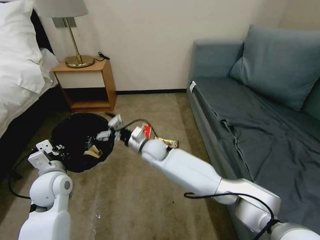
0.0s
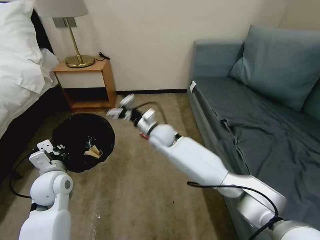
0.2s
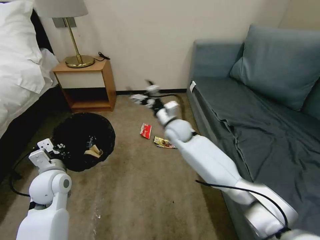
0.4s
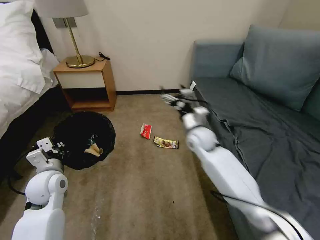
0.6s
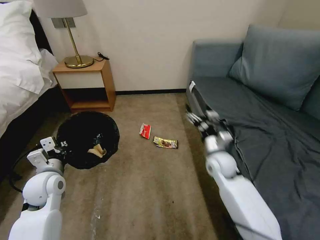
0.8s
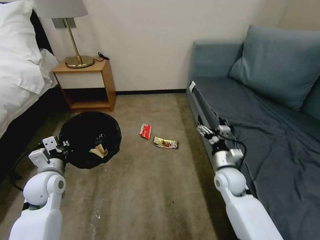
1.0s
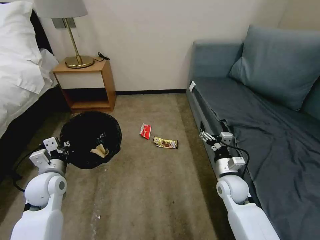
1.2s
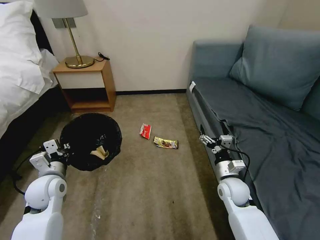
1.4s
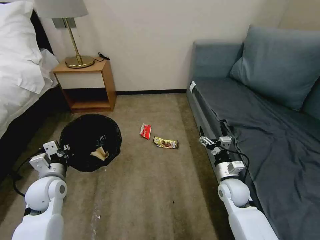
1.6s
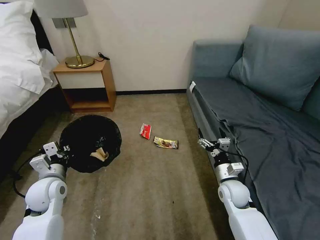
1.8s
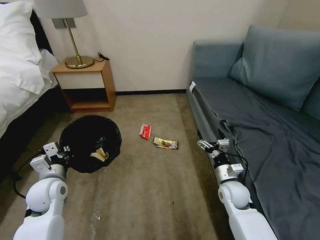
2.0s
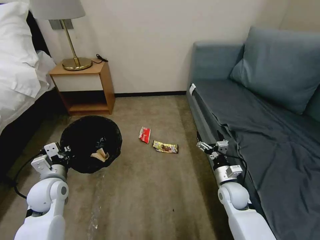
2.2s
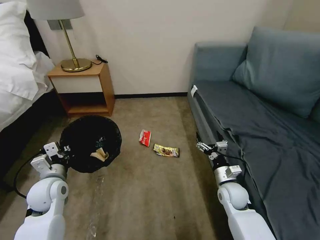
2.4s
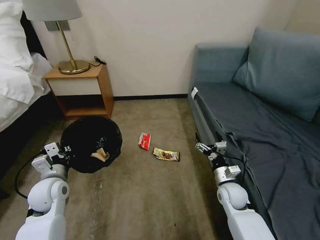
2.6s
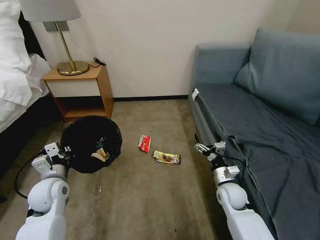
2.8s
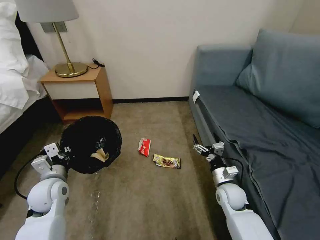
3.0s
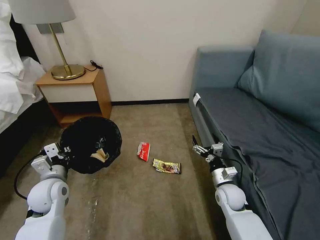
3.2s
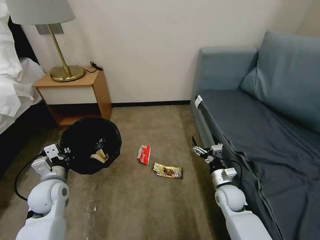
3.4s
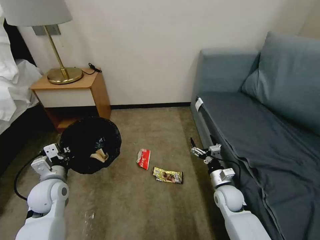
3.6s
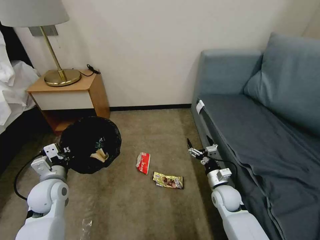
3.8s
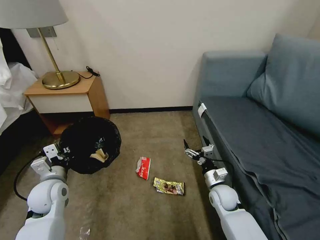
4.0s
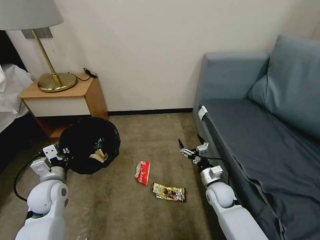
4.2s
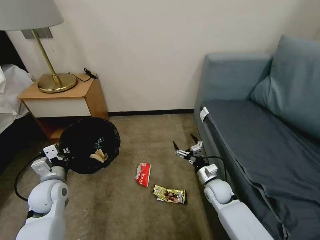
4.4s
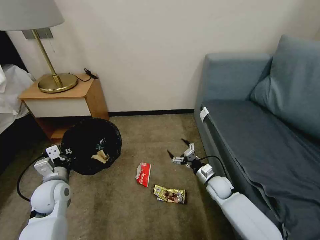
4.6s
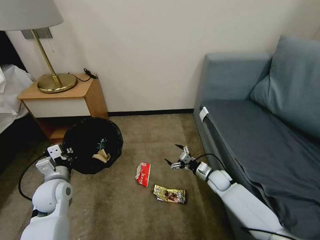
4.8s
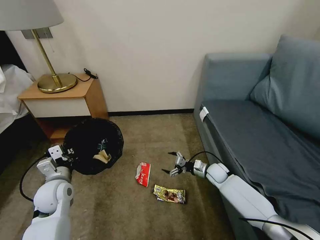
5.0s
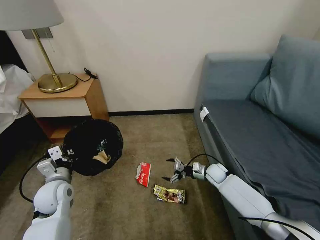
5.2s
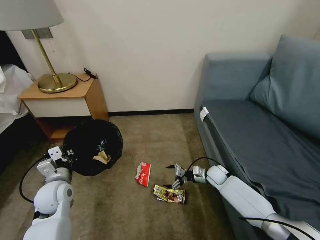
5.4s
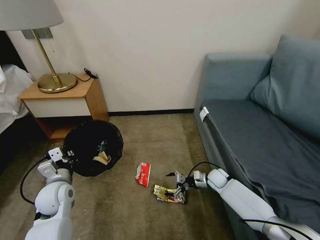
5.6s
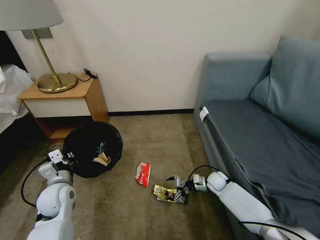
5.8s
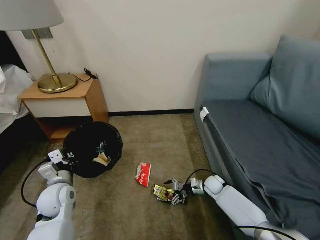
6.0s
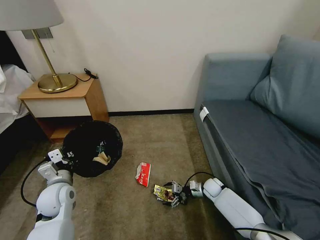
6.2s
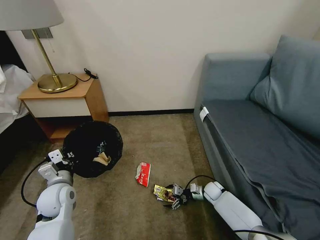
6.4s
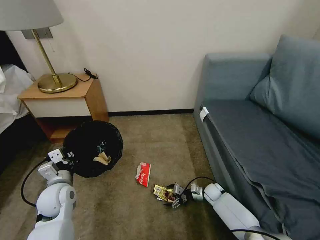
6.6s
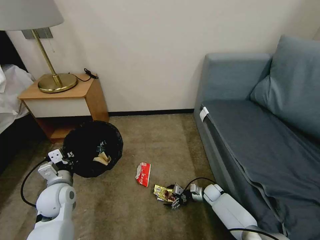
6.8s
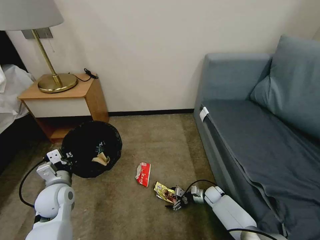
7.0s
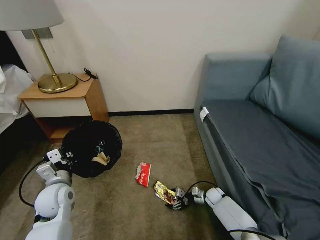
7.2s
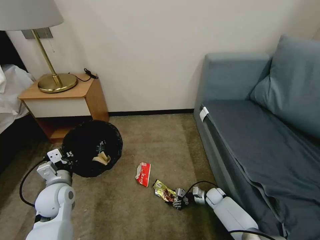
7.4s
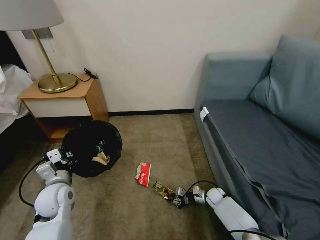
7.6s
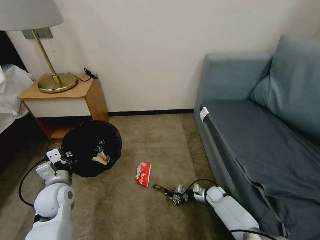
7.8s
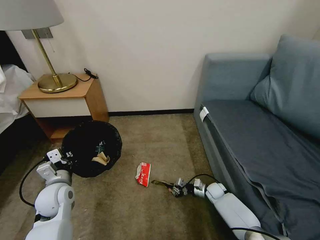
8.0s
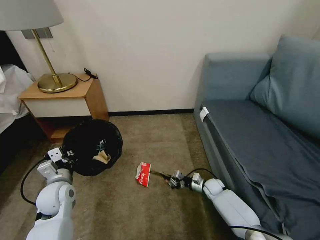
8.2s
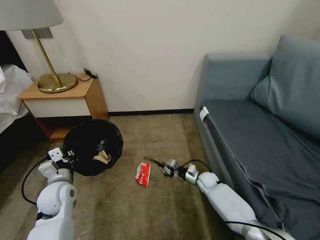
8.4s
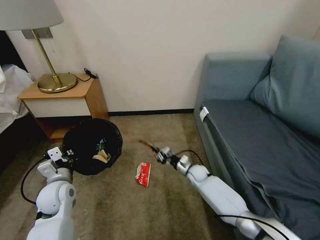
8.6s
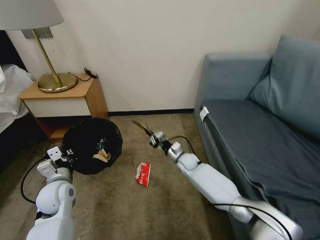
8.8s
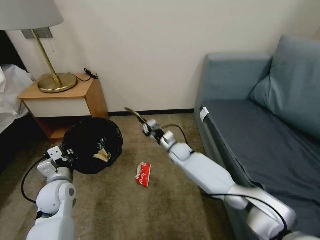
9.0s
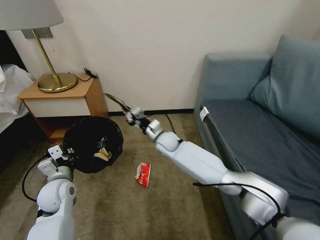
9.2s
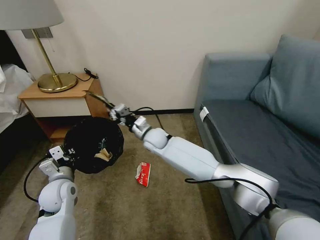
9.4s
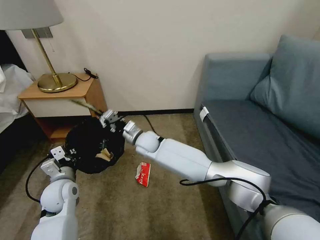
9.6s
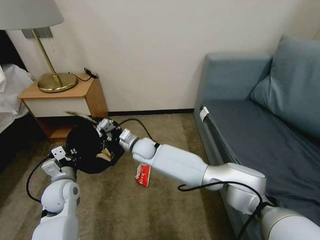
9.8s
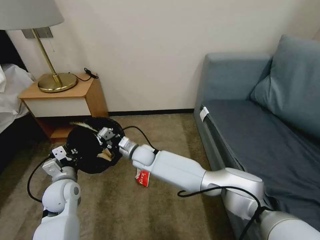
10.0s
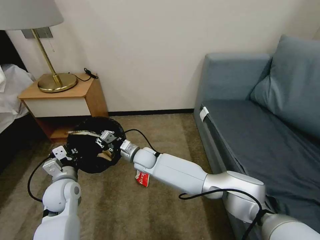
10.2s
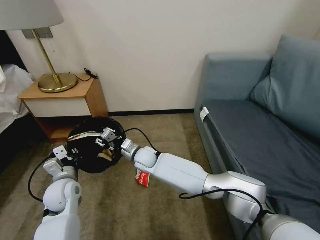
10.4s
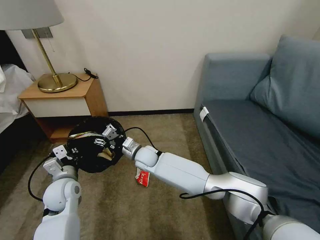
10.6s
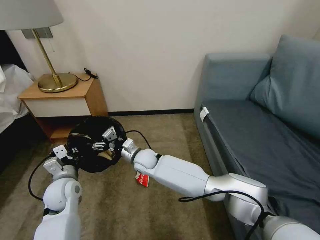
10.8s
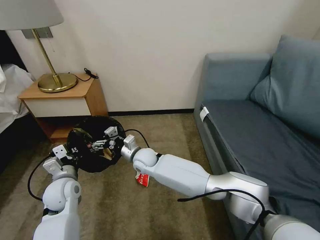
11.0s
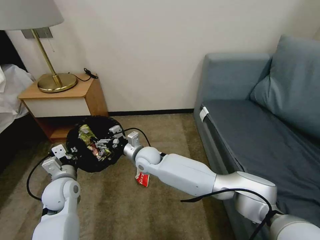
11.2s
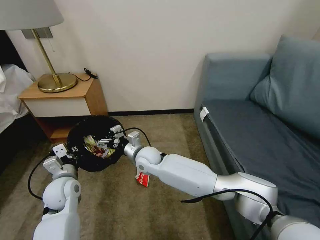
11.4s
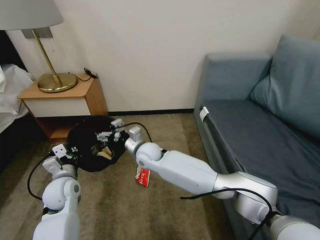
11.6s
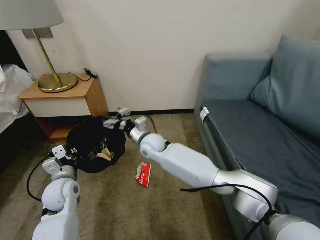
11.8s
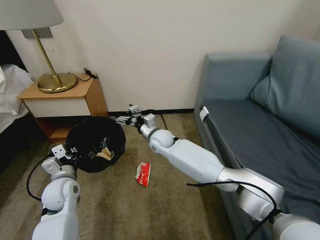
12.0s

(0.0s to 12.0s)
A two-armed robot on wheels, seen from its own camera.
Task of the whole recording: Pick up the trash bin, then pick up the garbage on the floor and place it into the trash bin.
0.0s - 1.6s: The right gripper moves to the right and backward, about 30 cm.
4.4s - 6.0s: The right gripper heads downward and forward, covering some 10 cm.
6.0s - 7.6s: The right gripper moves downward, about 5 cm, and closes.
7.6s - 9.0s: The right gripper heads upward, to the left and forward, covering about 30 cm.
9.0s - 10.4s: The right gripper moves to the left, some 15 cm, and opens its fingers.
10.4s - 12.0s: The right gripper is displaced to the right, forward and upward by approximately 10 cm, and opens up.

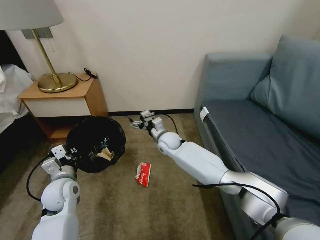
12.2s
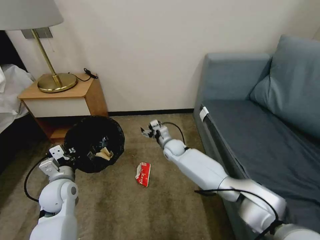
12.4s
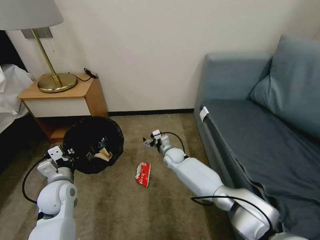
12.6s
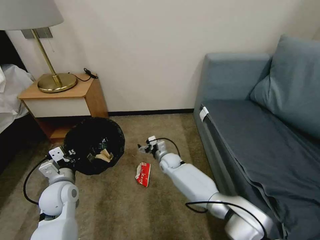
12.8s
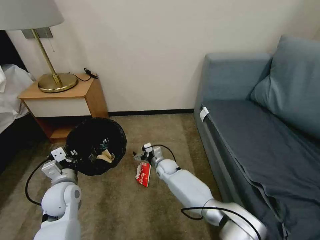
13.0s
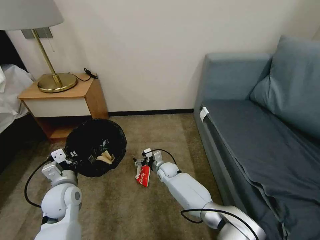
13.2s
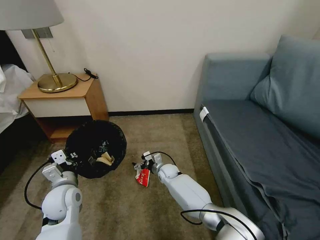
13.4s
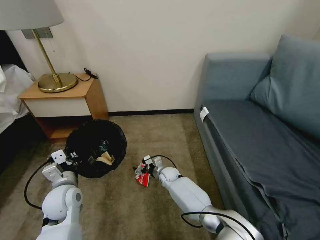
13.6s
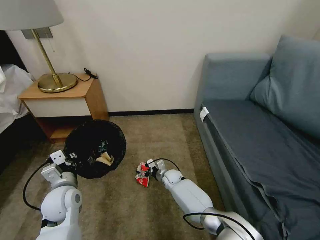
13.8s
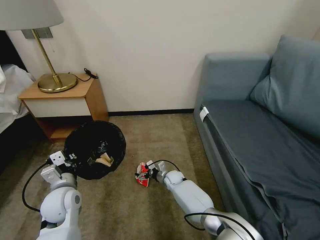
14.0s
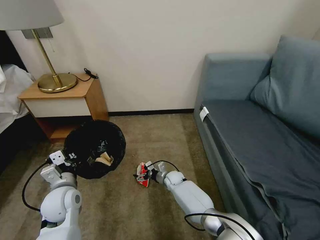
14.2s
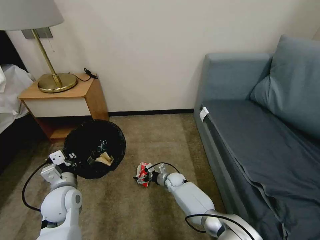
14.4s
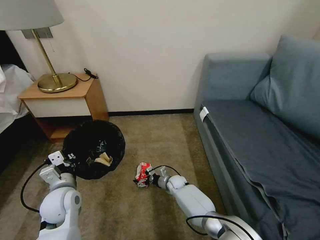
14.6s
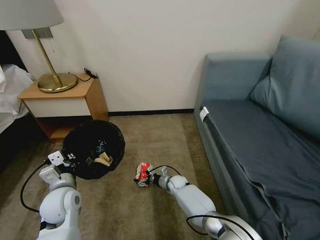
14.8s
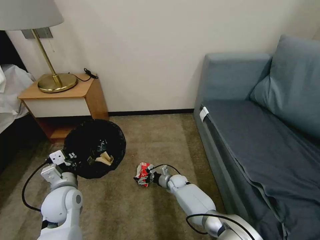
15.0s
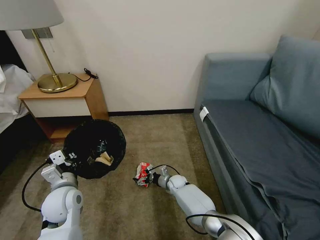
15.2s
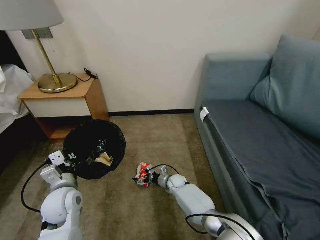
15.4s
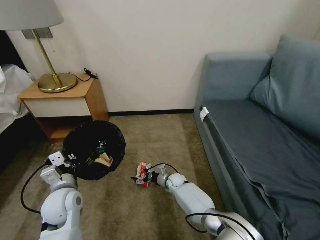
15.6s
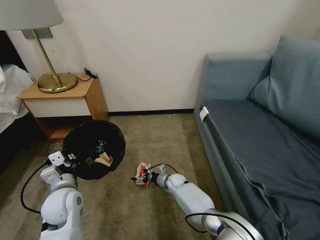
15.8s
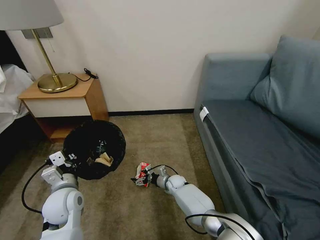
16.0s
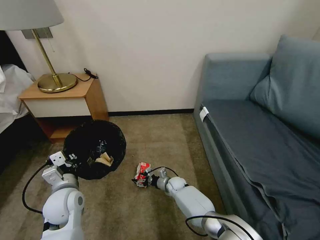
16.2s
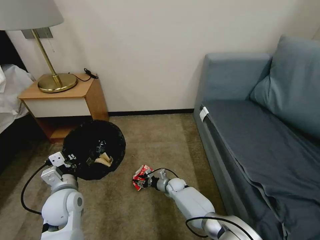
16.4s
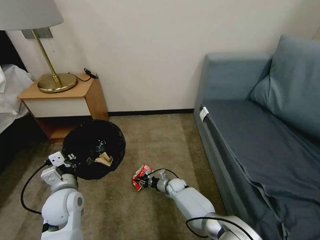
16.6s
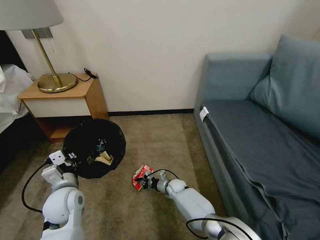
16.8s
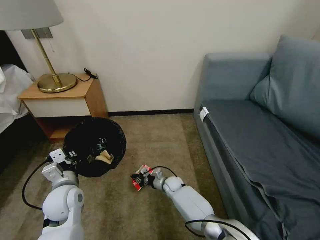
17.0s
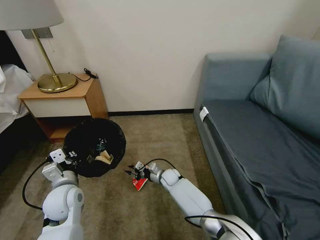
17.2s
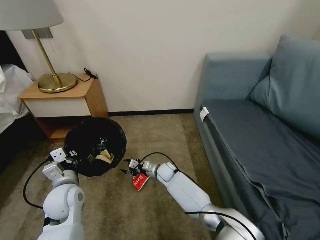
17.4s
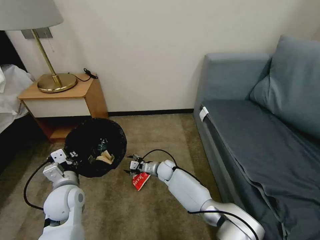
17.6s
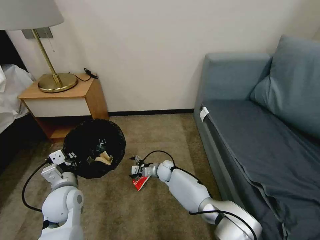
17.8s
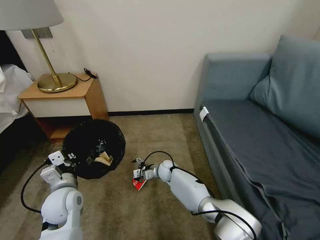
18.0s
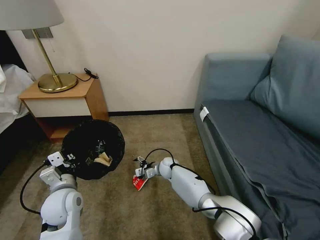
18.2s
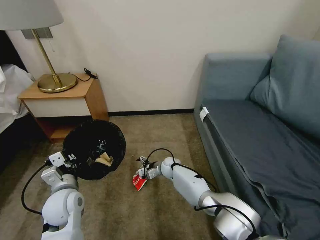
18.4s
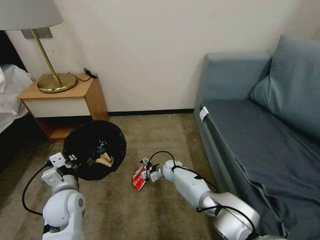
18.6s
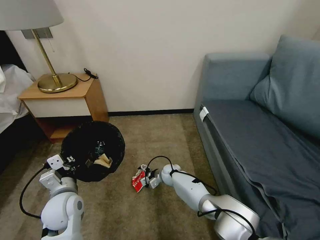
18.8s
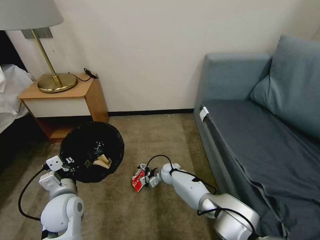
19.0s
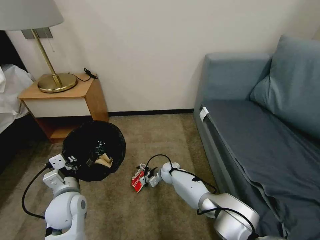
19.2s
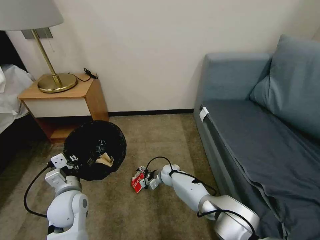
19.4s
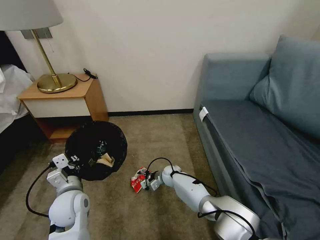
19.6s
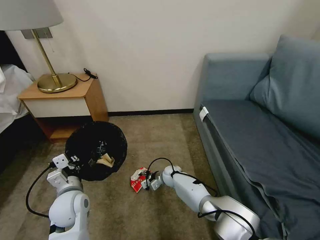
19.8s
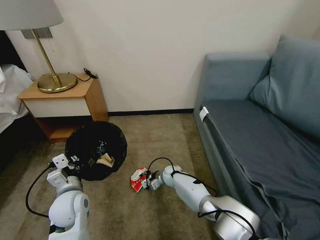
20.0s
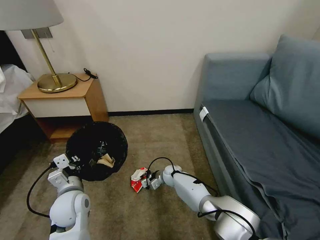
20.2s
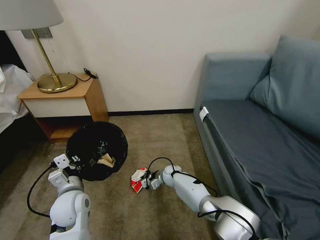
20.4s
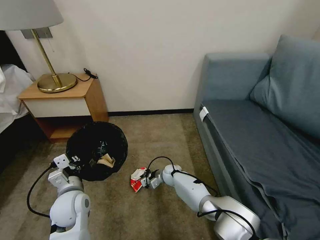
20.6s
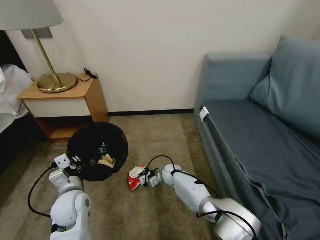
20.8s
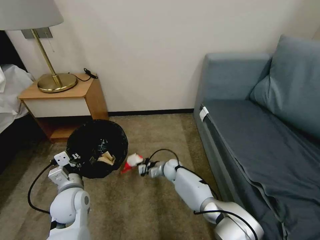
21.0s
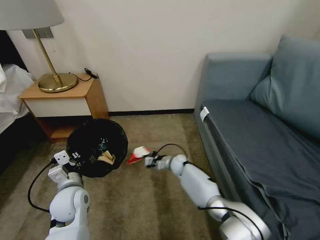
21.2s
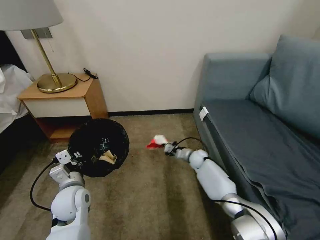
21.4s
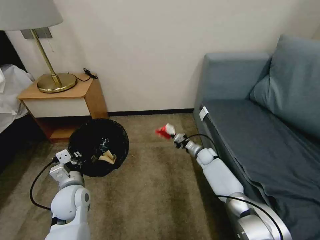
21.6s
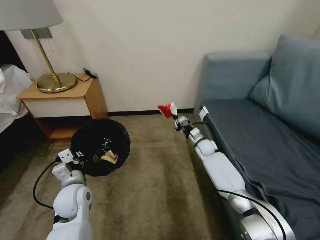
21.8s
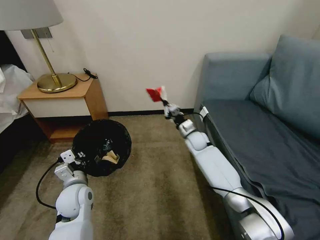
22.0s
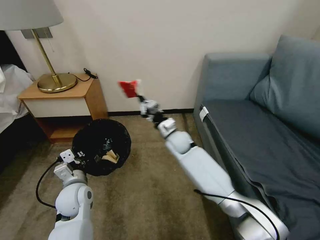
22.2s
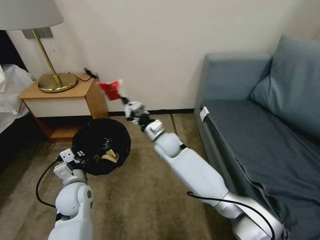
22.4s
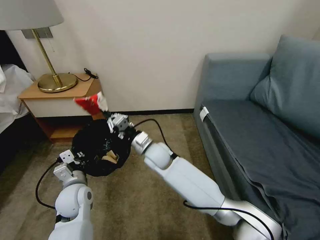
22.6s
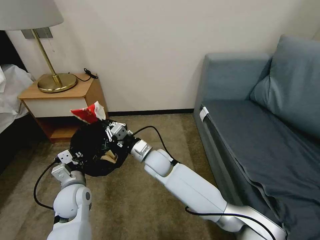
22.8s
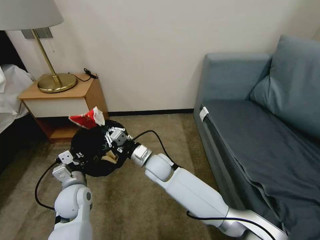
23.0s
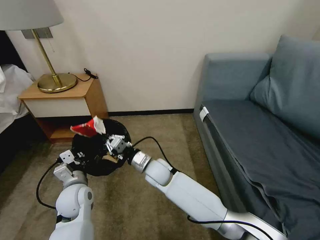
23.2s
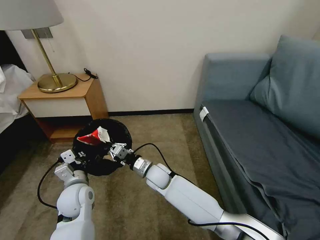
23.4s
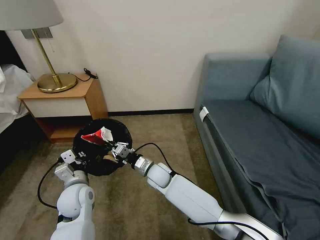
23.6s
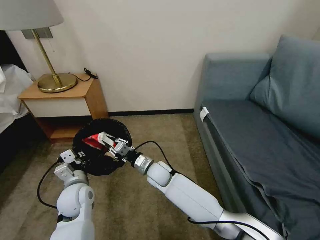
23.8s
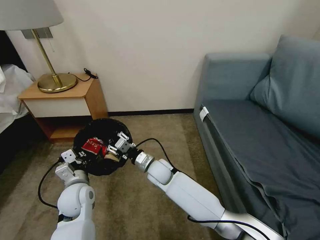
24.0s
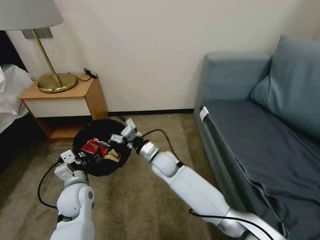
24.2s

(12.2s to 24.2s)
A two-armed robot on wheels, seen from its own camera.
Task of the whole recording: Pick up the trash bin, then pick up the garbage on the floor and place it into the trash bin.
12.2s - 13.8s: The right gripper is displaced downward by about 20 cm.
13.8s - 15.2s: There are only small adjustments of the grippers.
15.2s - 16.6s: The right gripper closes its fingers.
16.6s - 18.2s: The right gripper is displaced upward and forward by some 10 cm, and opens up.
18.2s - 19.8s: The right gripper shifts by about 5 cm, and closes its fingers.
19.8s - 21.2s: The right gripper is displaced to the right and upward by about 5 cm, and closes its fingers.
21.2s - 22.6s: The right gripper heads upward and to the left, covering approximately 25 cm.
22.6s - 24.2s: The right gripper opens its fingers.
